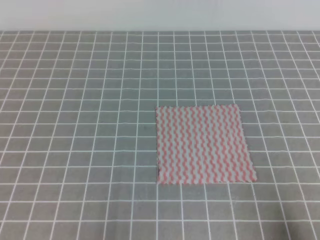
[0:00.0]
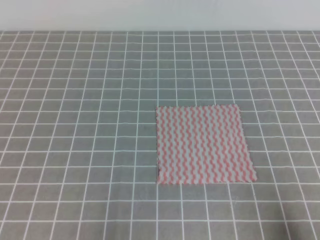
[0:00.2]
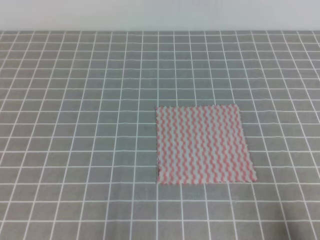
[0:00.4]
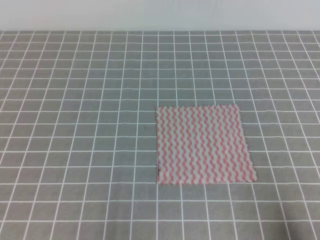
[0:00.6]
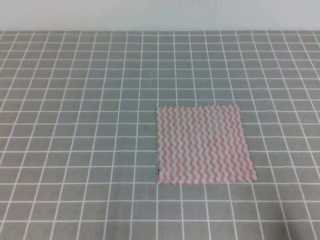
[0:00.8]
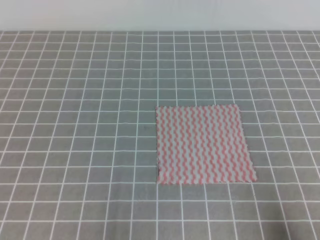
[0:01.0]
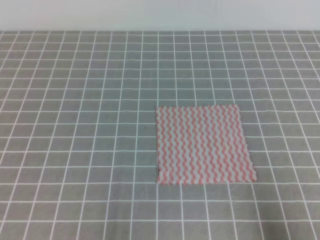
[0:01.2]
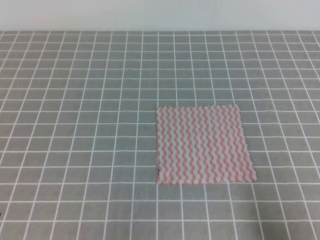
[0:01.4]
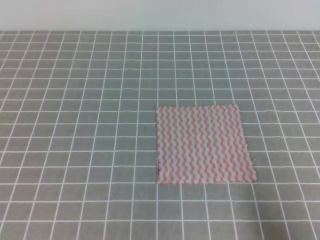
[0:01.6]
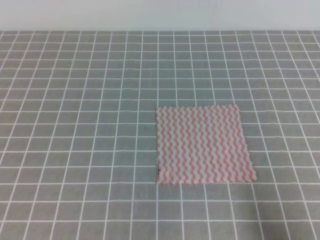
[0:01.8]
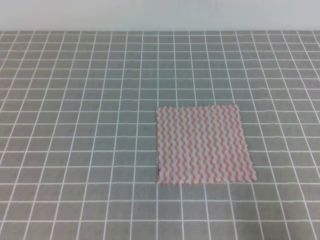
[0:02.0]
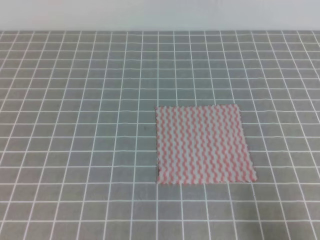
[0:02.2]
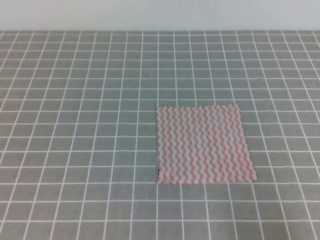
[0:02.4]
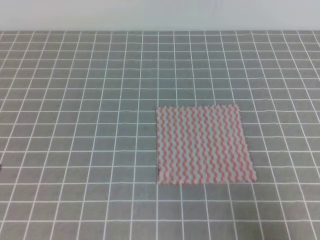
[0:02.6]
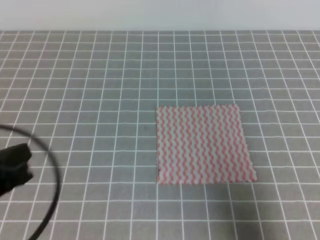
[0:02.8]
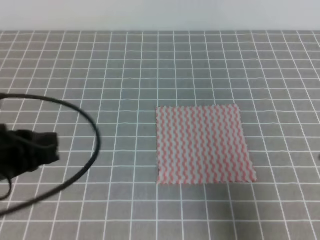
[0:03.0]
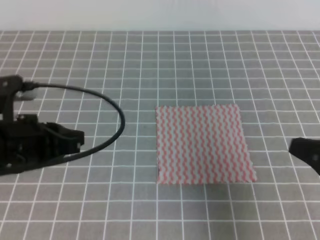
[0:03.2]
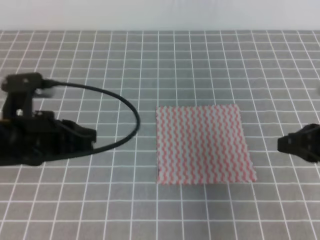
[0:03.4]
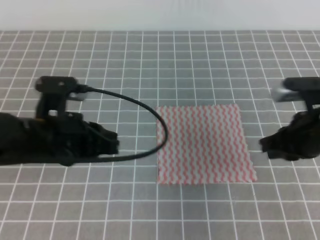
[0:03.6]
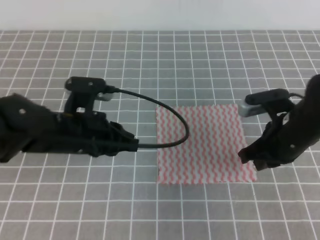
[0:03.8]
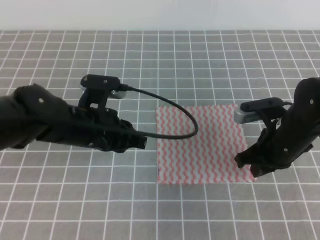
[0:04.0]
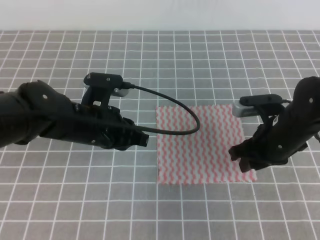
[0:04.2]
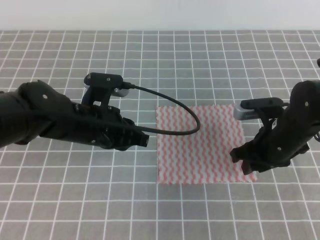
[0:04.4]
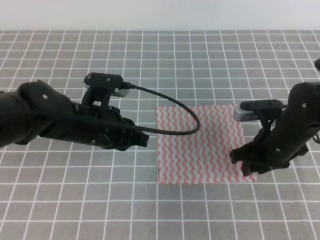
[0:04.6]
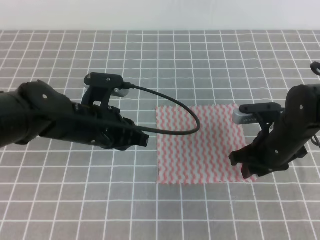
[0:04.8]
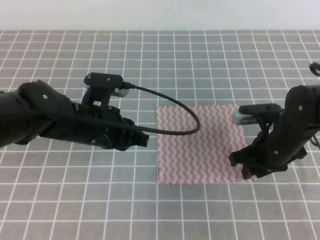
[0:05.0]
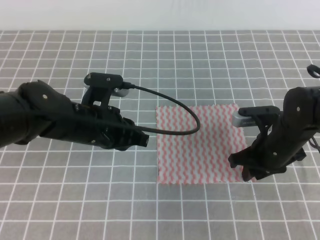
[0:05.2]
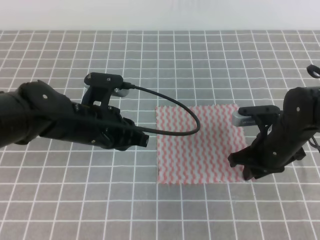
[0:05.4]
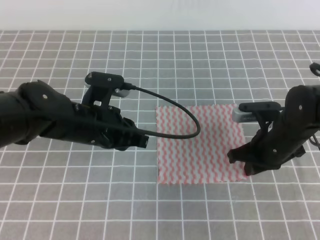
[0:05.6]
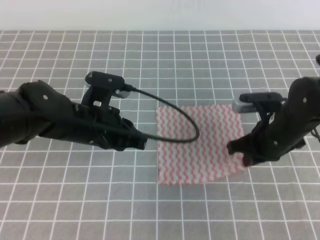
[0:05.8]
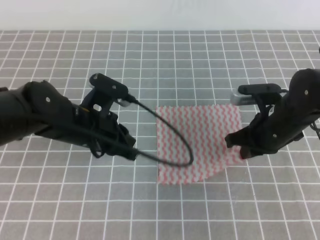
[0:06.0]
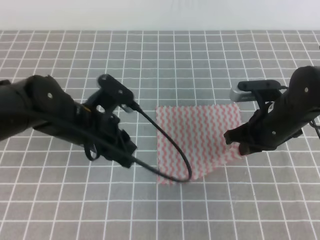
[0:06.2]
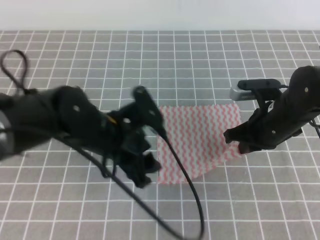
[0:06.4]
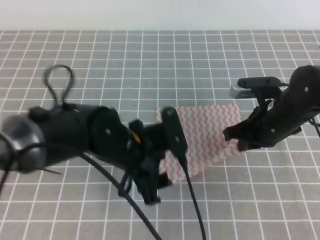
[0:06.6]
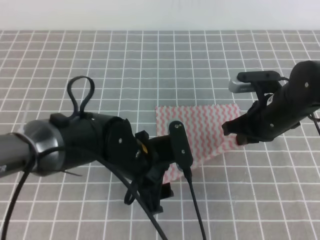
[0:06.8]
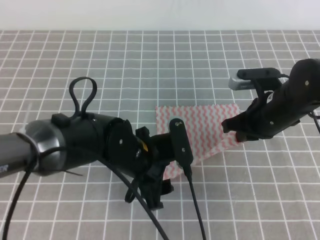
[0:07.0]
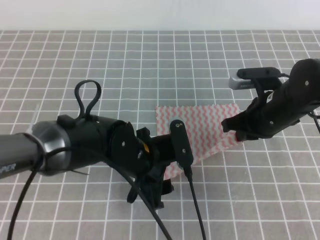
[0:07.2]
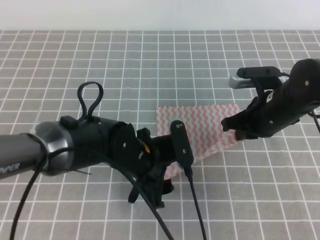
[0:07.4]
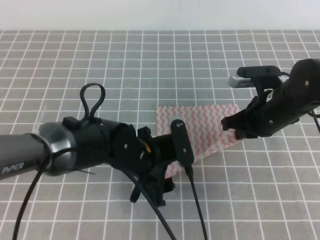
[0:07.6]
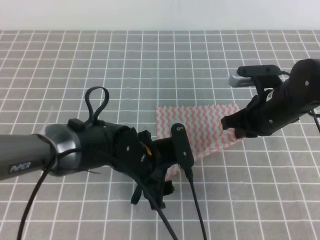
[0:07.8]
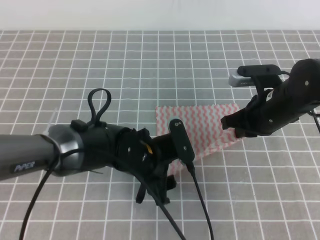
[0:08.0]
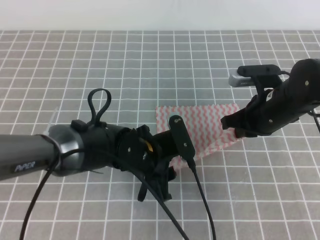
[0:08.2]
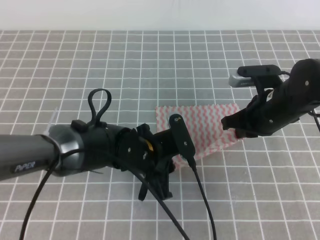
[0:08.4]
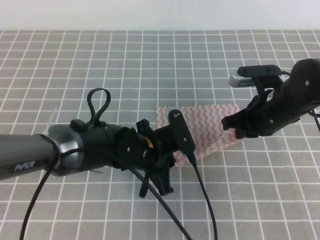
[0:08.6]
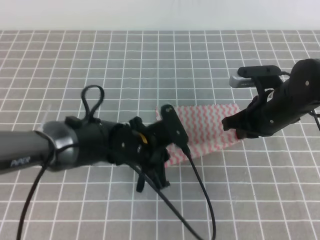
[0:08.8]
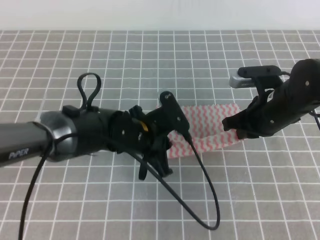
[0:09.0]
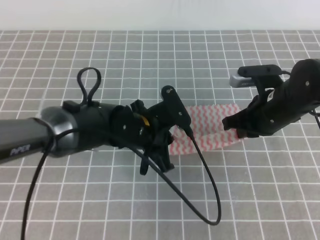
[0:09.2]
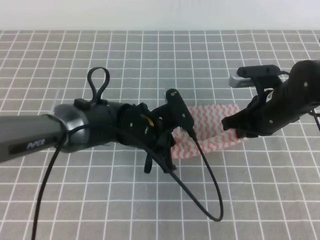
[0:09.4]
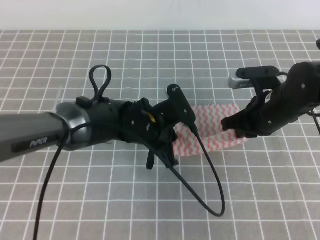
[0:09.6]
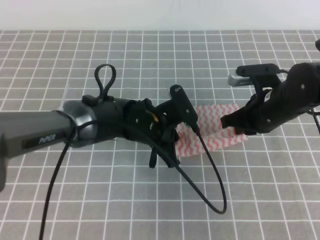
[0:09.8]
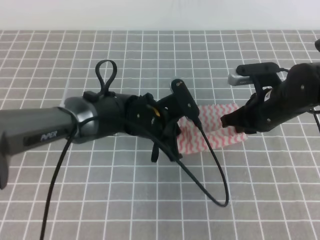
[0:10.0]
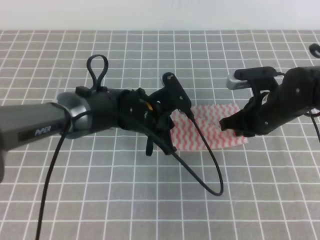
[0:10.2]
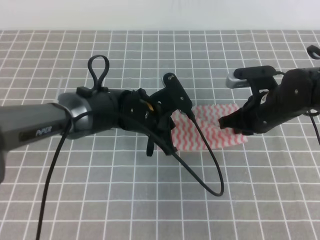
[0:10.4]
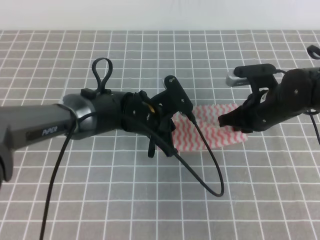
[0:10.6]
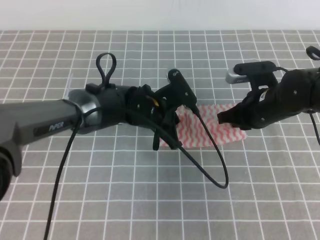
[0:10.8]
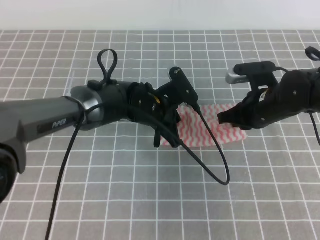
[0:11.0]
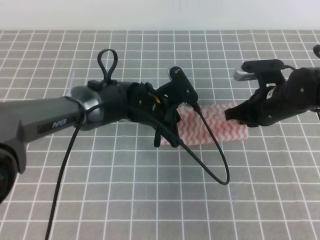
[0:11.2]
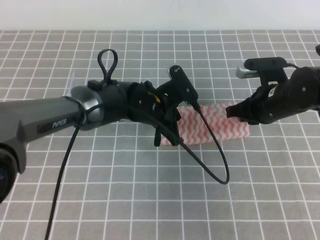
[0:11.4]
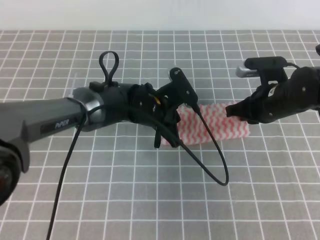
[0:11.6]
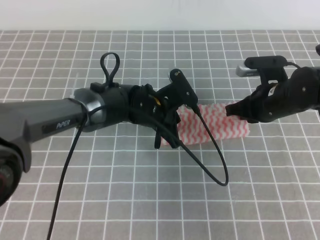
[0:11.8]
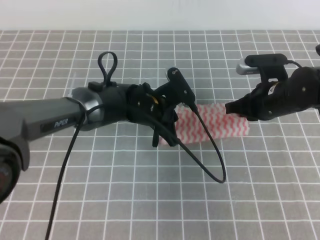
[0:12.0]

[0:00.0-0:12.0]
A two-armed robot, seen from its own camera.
Step, 0:00.0 to 0:10.0: Fold the towel upwards with the both gripper.
0:01.6 to 0:03.0: The left gripper heads forward and upward, covering roughly 15 cm, while the right gripper goes about 10 cm upward and forward.
0:03.0 to 0:04.4: The right gripper moves forward, downward and to the left, approximately 20 cm, and opens; the left gripper heads forward, to the right and downward, covering some 15 cm.
0:04.4 to 0:06.0: The right gripper closes its fingers.
0:06.0 to 0:07.6: The left gripper goes approximately 10 cm to the right and downward, and opens.
0:07.6 to 0:09.0: The left gripper closes up.
0:09.0 to 0:10.4: The grippers move only a little.
0:10.4 to 0:12.0: There are only small adjustments of the grippers.

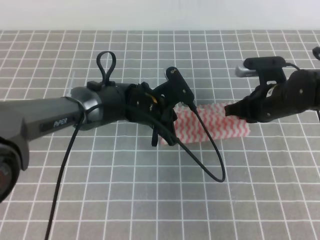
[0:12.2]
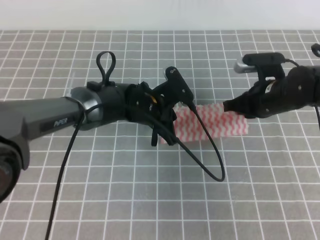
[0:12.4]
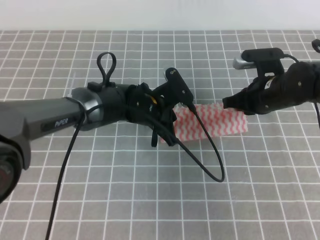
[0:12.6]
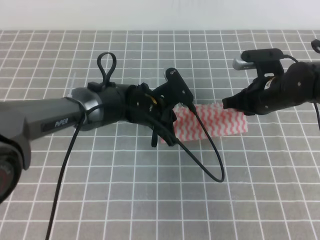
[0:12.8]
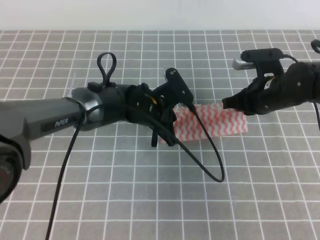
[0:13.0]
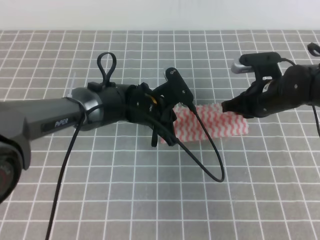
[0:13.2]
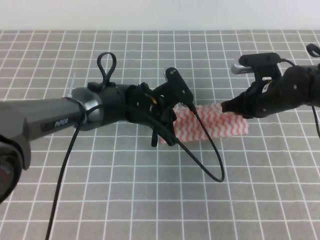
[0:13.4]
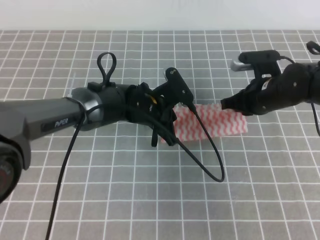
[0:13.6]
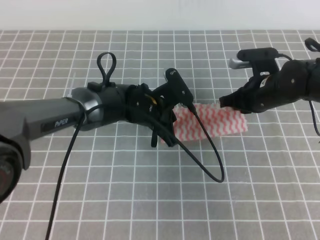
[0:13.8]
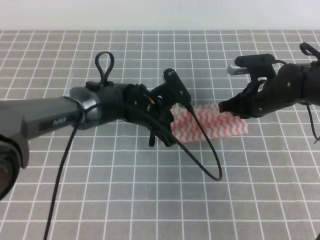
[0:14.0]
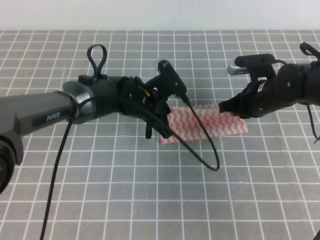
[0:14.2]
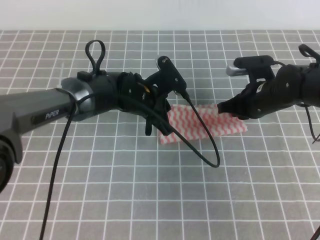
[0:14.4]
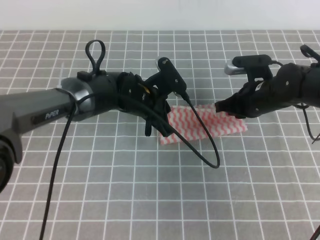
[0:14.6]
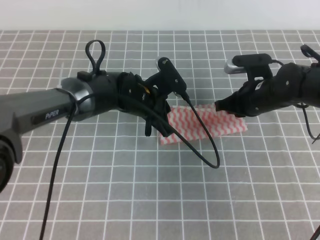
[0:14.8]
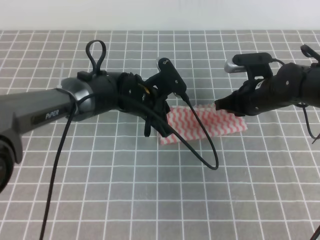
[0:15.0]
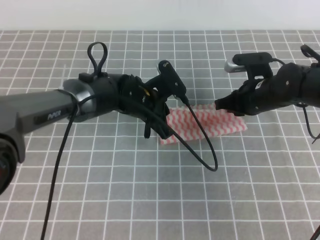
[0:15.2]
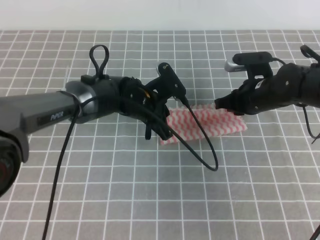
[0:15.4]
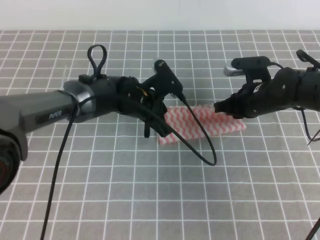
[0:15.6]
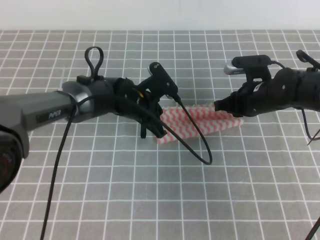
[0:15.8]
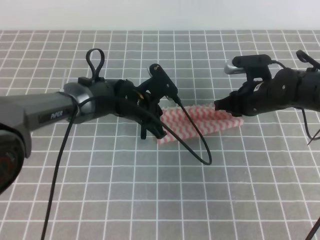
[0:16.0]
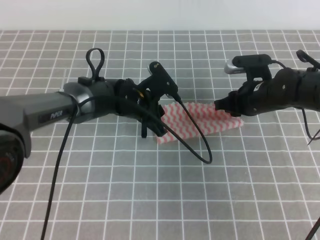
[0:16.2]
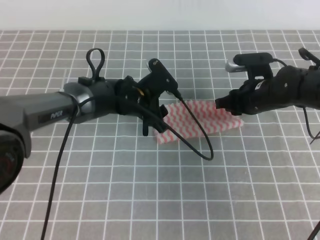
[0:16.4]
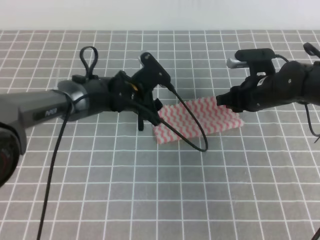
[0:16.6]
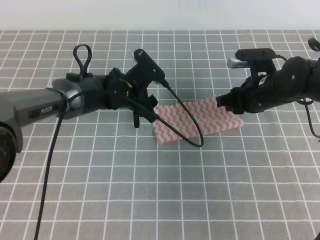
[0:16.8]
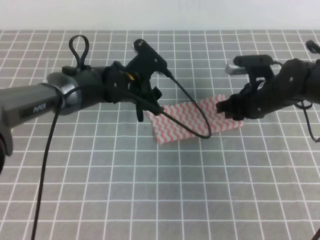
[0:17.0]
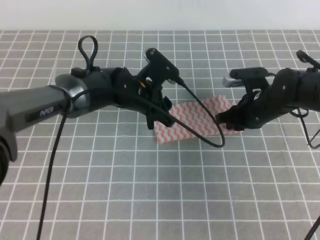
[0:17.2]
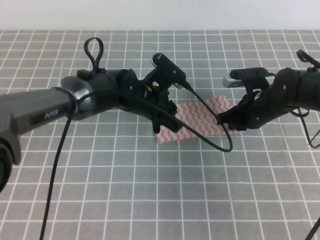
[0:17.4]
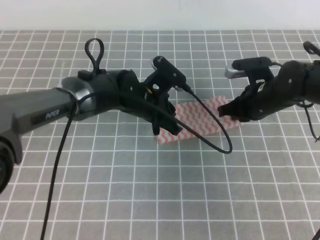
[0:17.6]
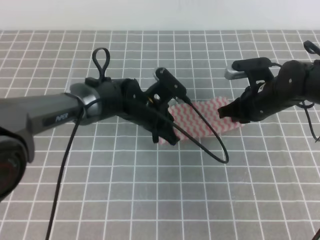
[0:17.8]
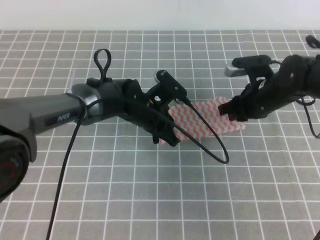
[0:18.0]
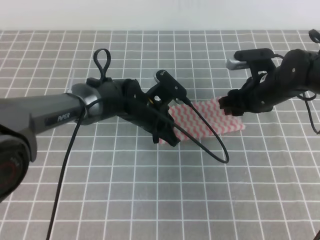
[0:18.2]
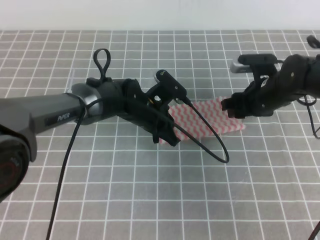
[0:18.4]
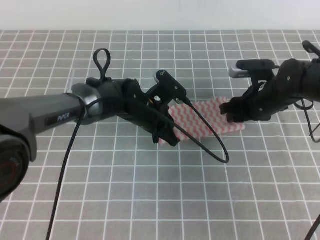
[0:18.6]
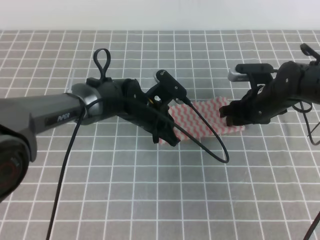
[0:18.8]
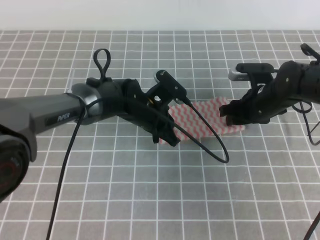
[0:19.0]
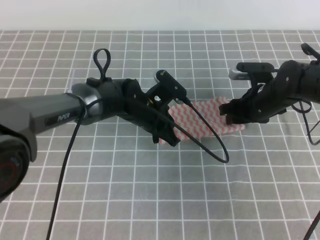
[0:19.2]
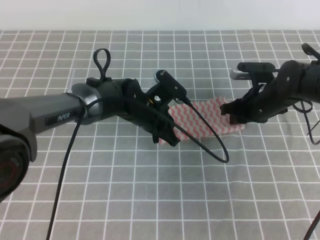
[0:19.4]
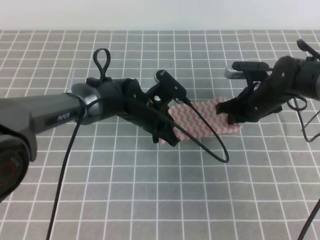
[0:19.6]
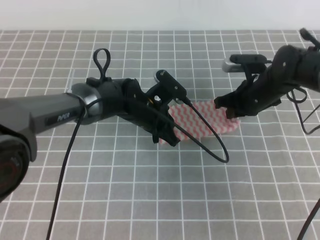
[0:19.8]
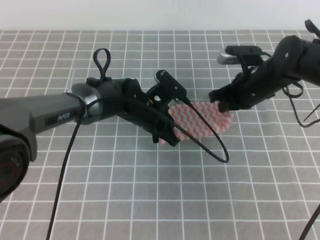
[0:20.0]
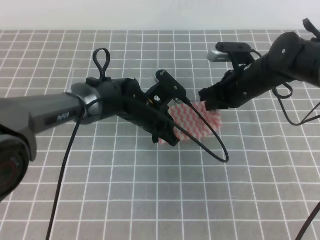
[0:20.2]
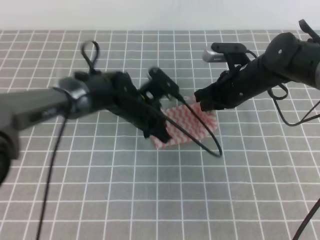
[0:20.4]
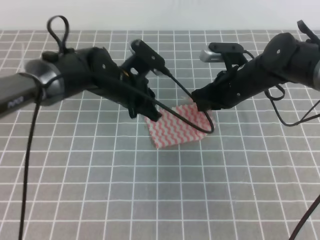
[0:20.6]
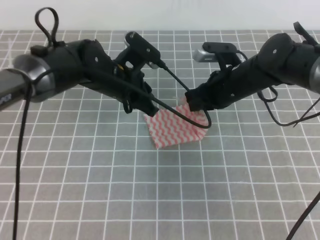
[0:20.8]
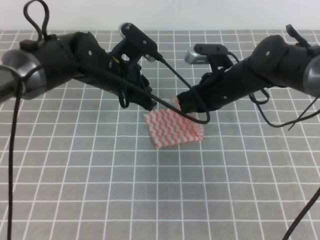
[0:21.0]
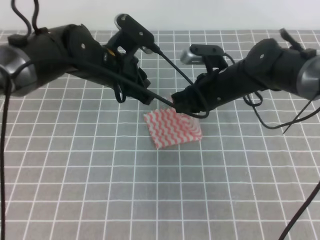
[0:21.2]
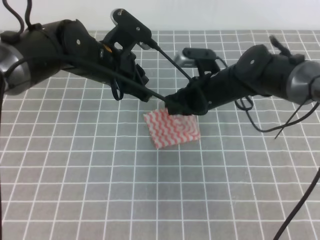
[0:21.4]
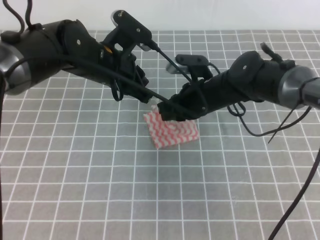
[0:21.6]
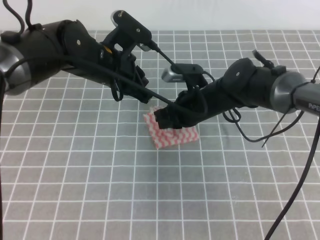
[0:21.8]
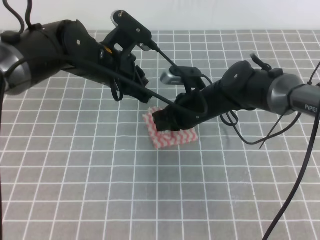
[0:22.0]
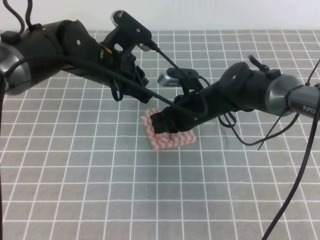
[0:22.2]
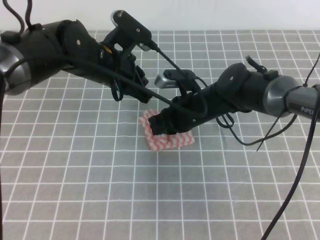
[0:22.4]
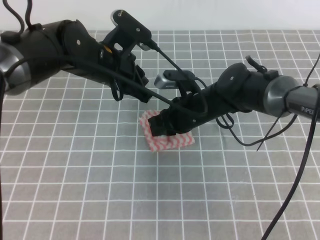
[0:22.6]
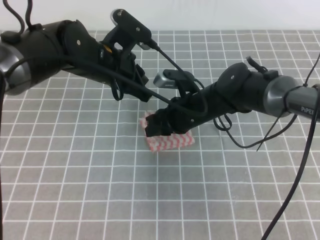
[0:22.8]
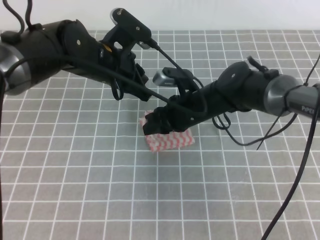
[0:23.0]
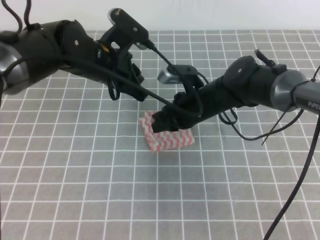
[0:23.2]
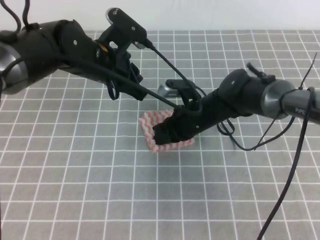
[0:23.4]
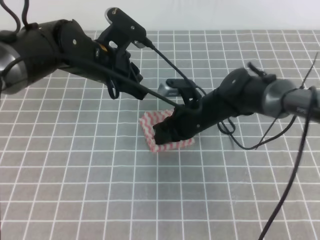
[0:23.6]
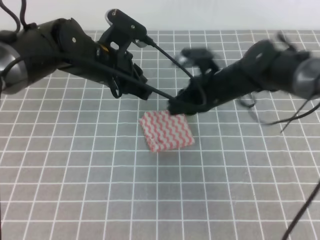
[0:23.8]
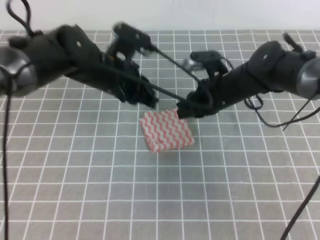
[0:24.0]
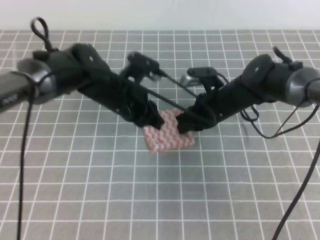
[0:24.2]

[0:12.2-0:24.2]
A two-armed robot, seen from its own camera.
Step, 0:14.0 to 0:14.8: Tidy up the towels.
0:12.2 to 0:15.2: The grippers make only small movements.
0:15.2 to 0:16.6: The left gripper opens up. The right gripper opens.
0:16.6 to 0:18.2: The left gripper shifts by some 5 cm, and closes its fingers; the right gripper closes, then reopens.
0:18.2 to 0:19.8: The right gripper closes up.
0:19.8 to 0:21.2: The right gripper moves to the left, some 10 cm. The left gripper travels upward and to the left by roughly 15 cm.
0:21.2 to 0:22.6: The right gripper ends up approximately 5 cm from where it was.
0:22.6 to 0:24.2: The right gripper heads to the right, covering about 5 cm. The left gripper travels downward by some 5 cm.
